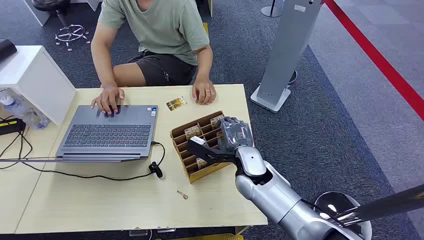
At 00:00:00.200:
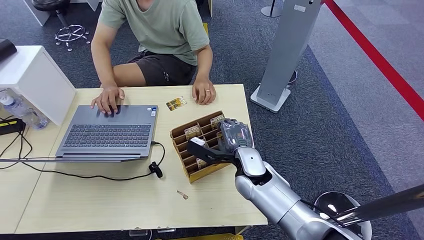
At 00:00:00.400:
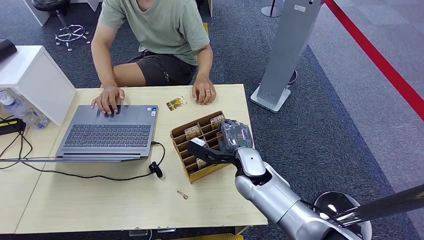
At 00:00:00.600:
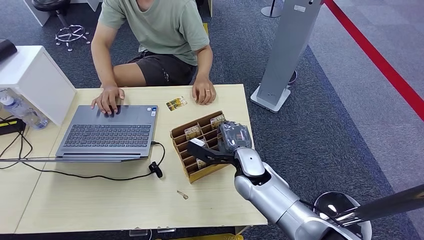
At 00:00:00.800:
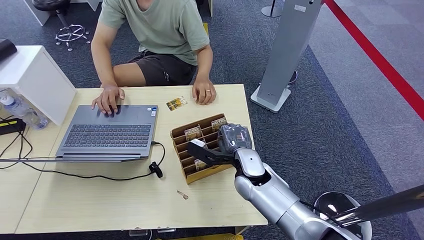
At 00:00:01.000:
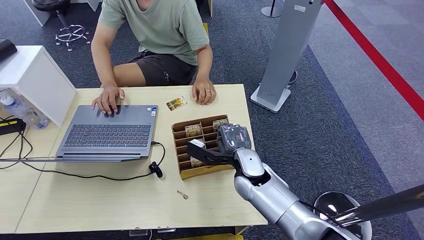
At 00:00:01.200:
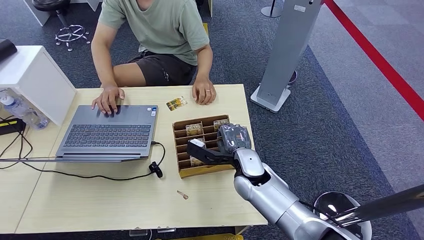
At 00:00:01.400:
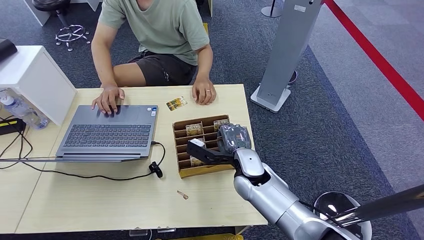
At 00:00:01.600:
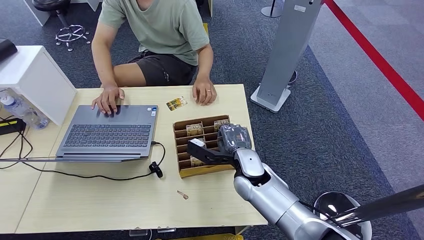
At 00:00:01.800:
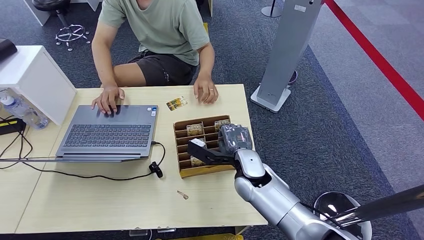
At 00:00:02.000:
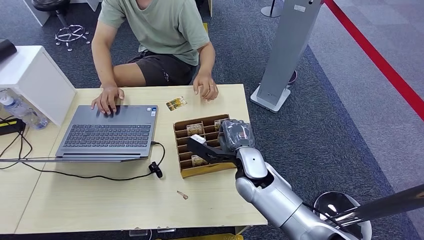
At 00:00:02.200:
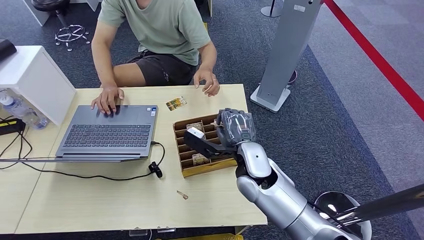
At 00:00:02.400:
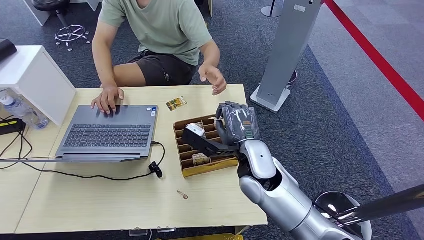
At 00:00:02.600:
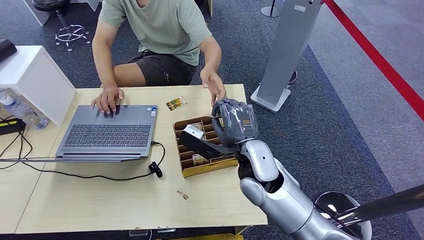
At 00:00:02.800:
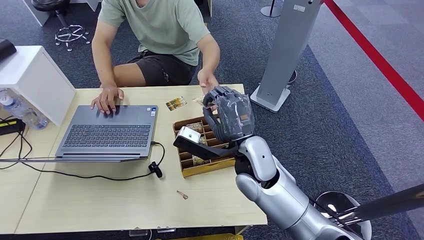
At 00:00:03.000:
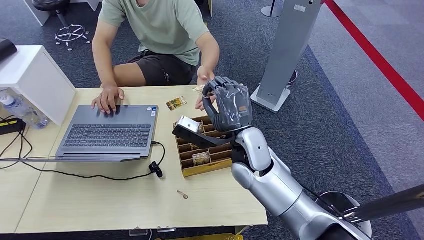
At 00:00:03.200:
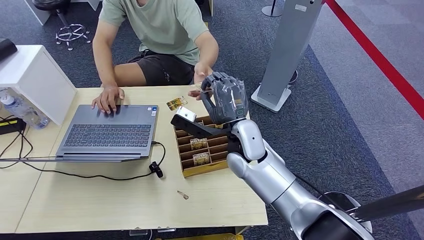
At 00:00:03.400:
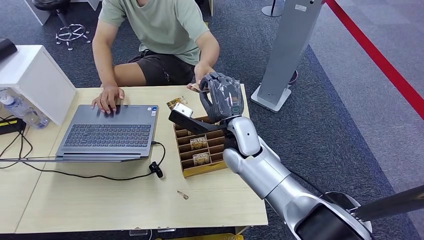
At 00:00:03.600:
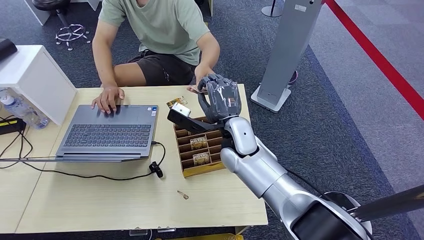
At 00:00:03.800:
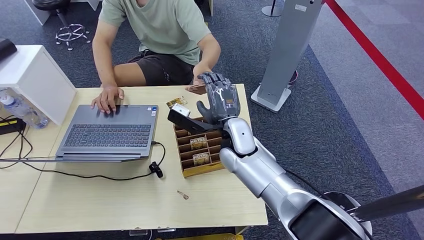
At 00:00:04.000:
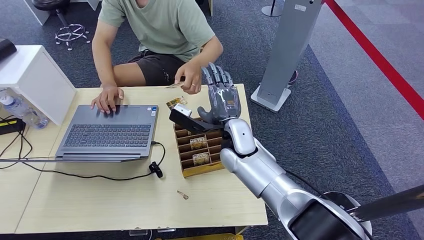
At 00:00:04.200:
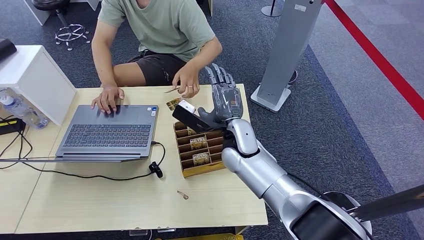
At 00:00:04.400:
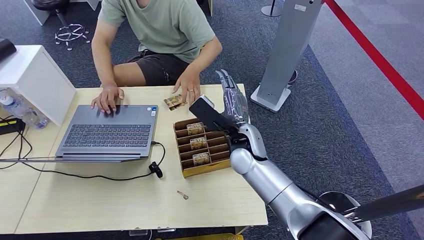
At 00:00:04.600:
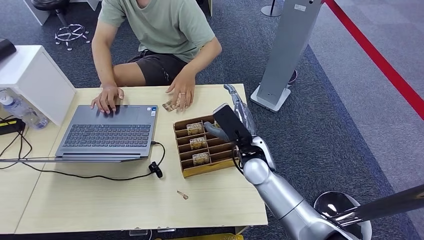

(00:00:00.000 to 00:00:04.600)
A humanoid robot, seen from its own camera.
Step, 00:00:00.000 - 00:00:02.600: Pick up the room card from the card holder.
Step, 00:00:03.000 - 00:00:04.600: Hand the room card to the target.
00:00:01.600 - 00:00:03.000: The right hand shifts about 10 cm upward.
00:00:03.000 - 00:00:04.600: The right hand goes approximately 5 cm downward.
